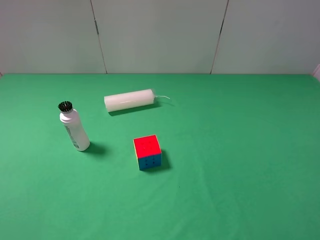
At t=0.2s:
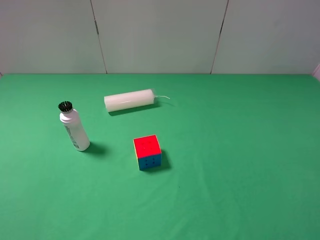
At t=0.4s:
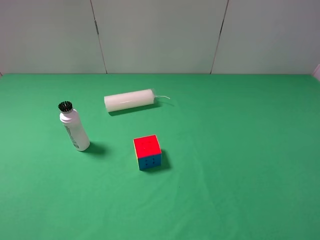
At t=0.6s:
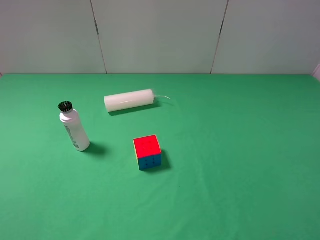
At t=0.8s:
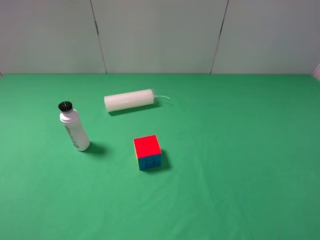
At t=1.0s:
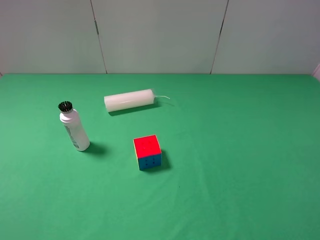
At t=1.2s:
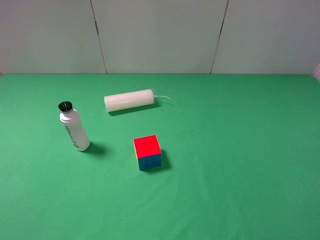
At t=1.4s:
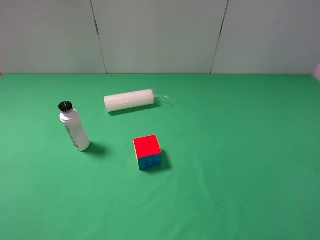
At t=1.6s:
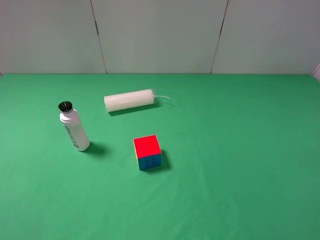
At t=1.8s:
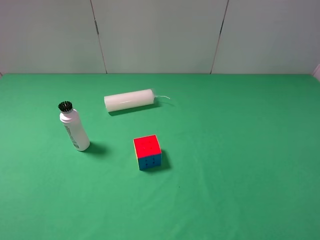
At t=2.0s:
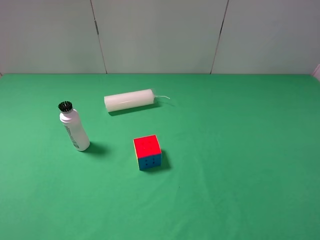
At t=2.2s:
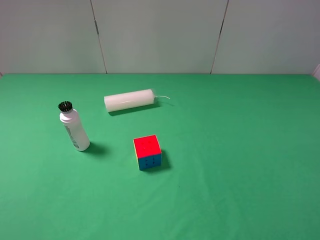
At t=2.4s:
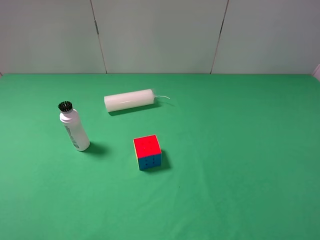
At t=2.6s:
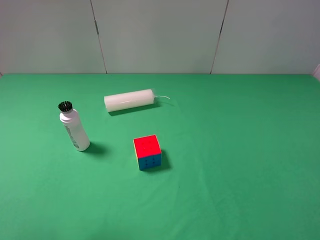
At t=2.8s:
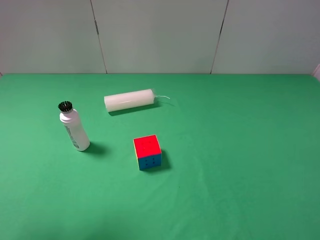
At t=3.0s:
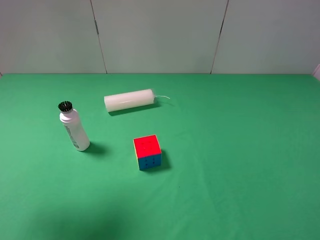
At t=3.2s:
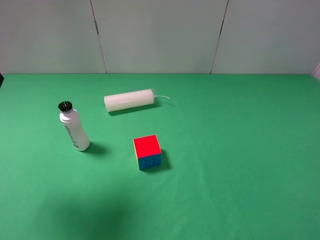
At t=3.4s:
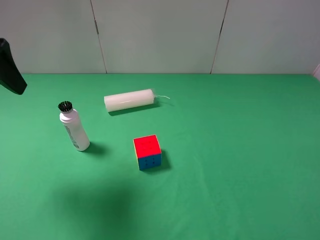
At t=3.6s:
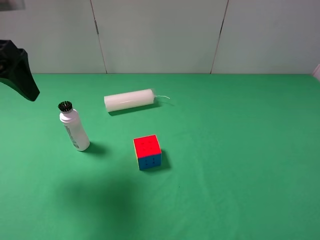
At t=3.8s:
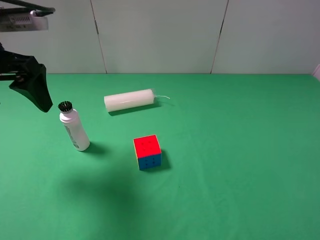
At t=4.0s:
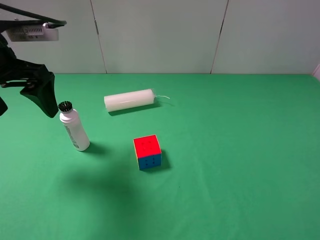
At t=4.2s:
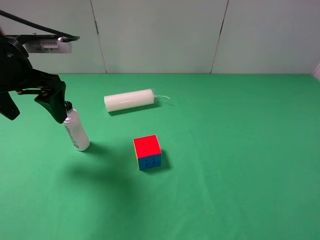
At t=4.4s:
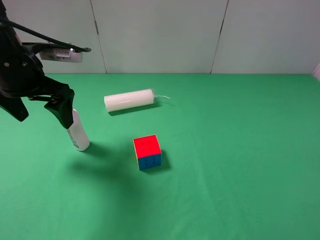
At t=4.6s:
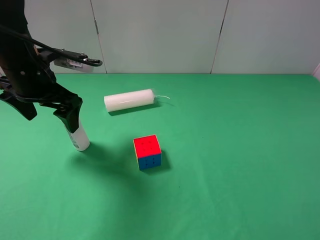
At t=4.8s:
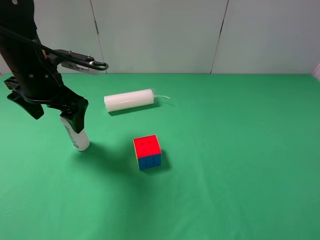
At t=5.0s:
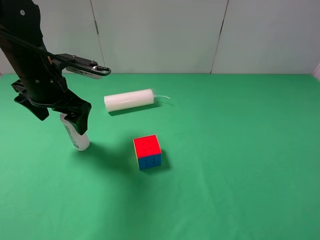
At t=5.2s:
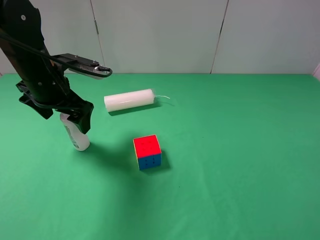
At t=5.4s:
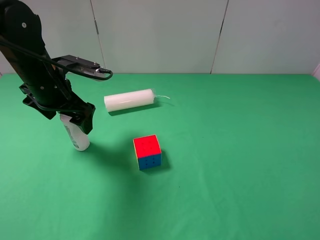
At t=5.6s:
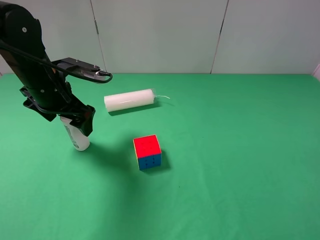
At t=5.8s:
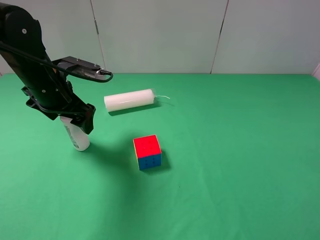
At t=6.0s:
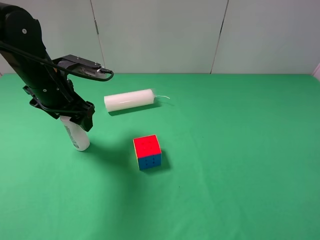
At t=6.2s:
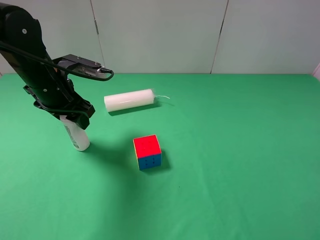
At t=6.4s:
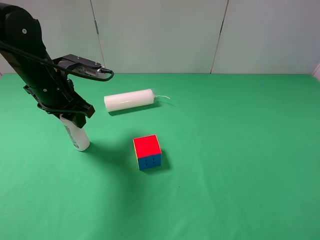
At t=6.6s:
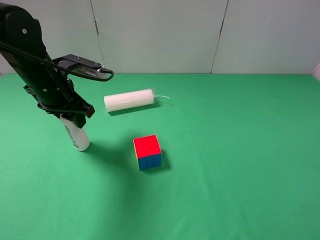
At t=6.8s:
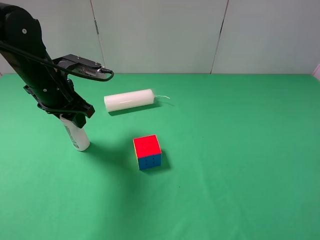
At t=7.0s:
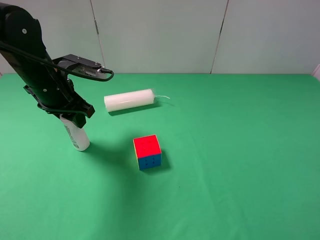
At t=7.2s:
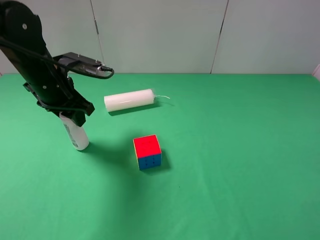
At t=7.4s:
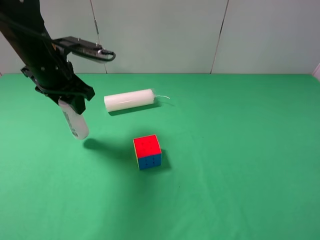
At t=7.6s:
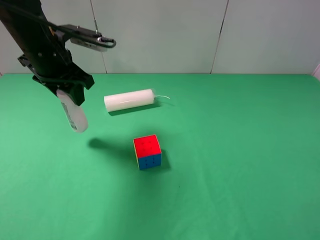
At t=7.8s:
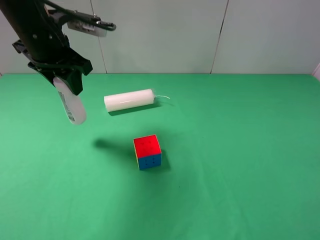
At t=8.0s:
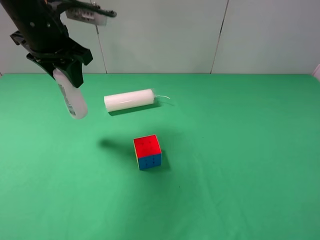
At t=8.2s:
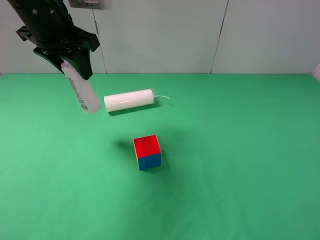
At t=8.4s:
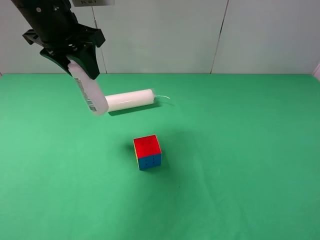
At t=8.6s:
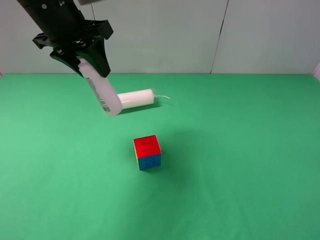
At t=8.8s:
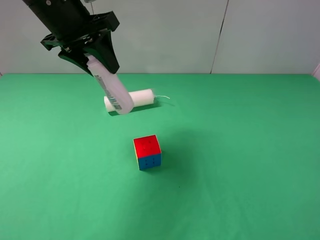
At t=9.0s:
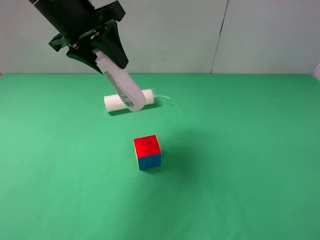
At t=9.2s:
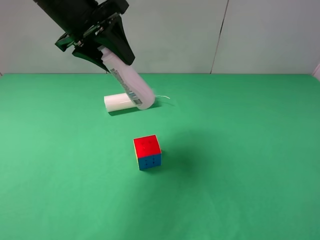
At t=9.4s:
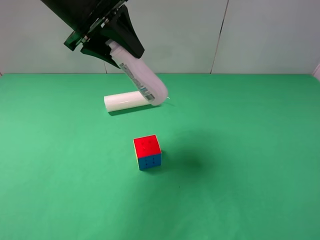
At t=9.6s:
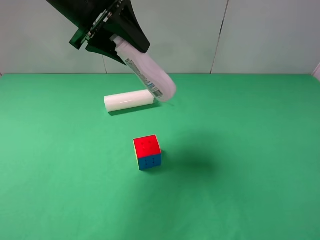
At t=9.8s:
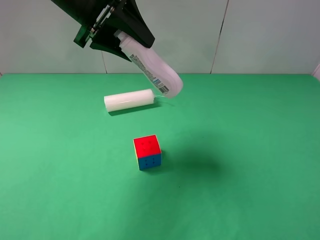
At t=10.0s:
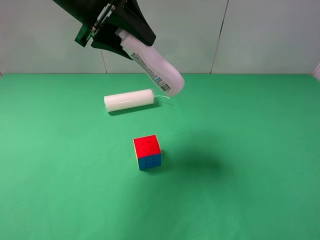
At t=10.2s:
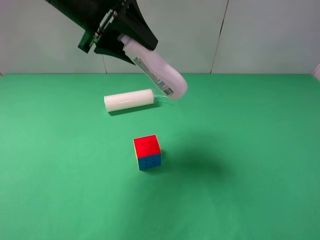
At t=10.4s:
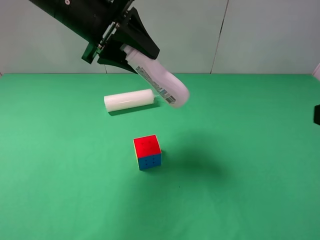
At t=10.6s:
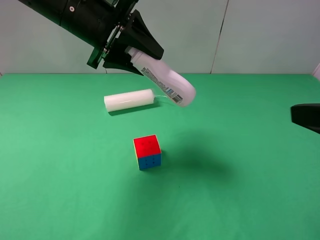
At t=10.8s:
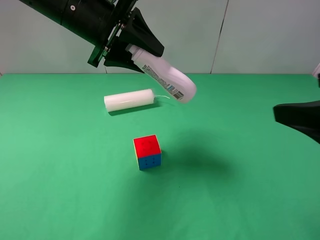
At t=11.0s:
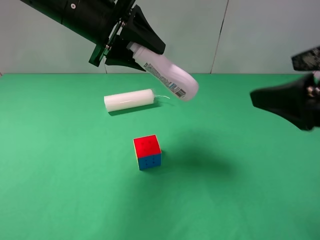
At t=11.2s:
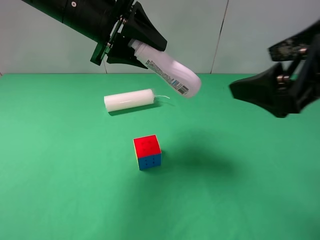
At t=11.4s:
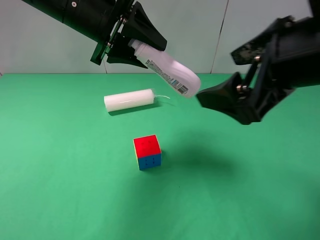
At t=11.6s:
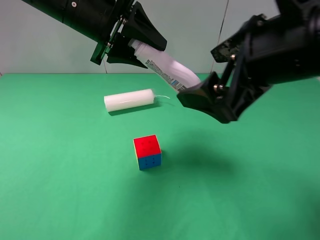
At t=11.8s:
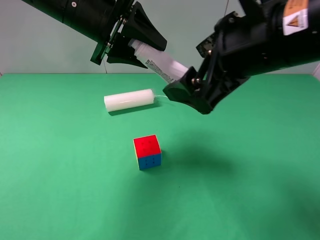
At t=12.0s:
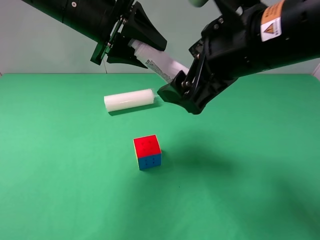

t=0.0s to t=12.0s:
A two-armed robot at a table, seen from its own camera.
Task of the whole recording: use the left gripper to pick up the item and transfer it from the left gripper to the right gripper.
t=0.0s to t=1.6s: The two grippers keep their place.
t=1.6s to t=3.0s: The left gripper travels forward and upward by approximately 20 cm.
t=3.0s to t=4.4s: The left gripper moves forward, downward and to the right, approximately 20 cm.
t=4.4s to t=6.0s: The left gripper shifts by approximately 5 cm, and closes up.
t=6.0s to t=7.6s: The left gripper is displaced upward by some 5 cm, and closes its fingers.
t=7.6s to t=9.0s: The left gripper travels upward by some 5 cm.
t=9.0s to t=10.4s: The right gripper travels forward by approximately 5 cm.
t=10.4s to t=12.0s: The right gripper shifts about 20 cm to the left and forward.

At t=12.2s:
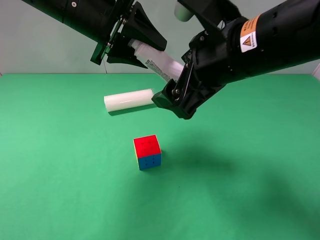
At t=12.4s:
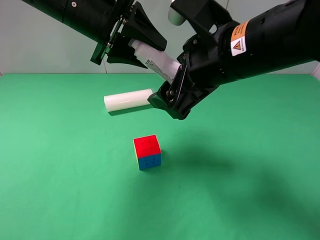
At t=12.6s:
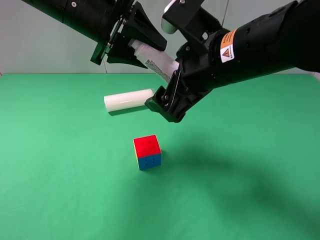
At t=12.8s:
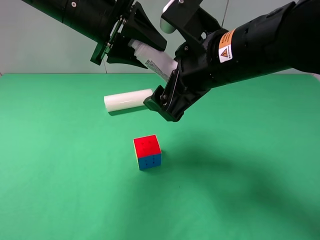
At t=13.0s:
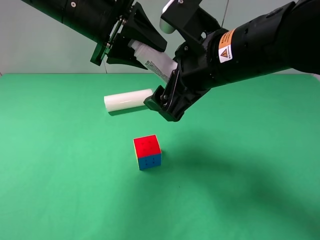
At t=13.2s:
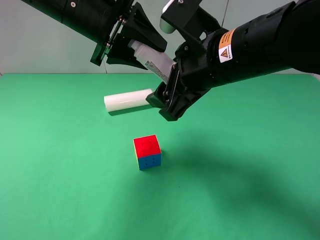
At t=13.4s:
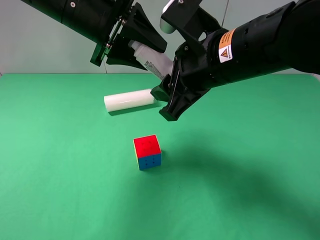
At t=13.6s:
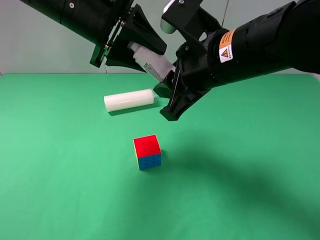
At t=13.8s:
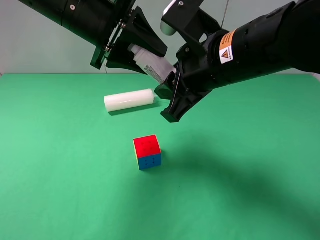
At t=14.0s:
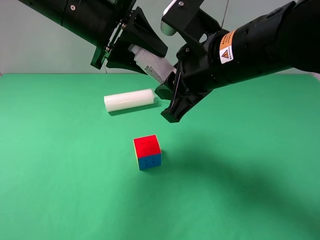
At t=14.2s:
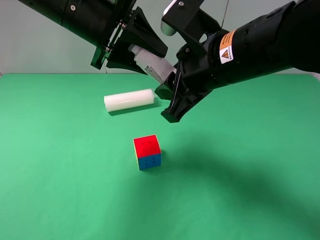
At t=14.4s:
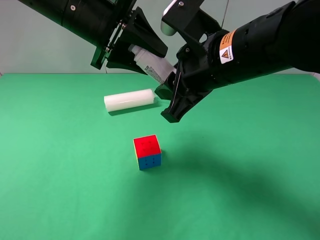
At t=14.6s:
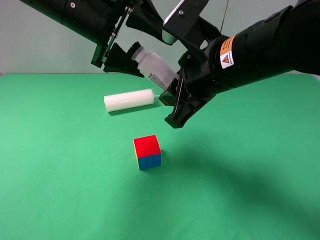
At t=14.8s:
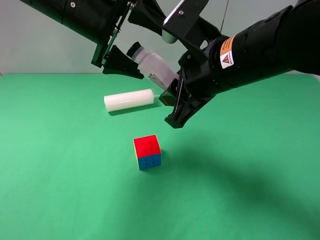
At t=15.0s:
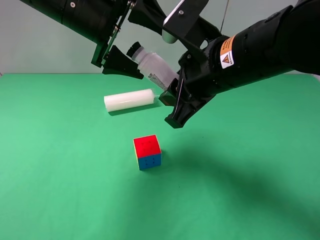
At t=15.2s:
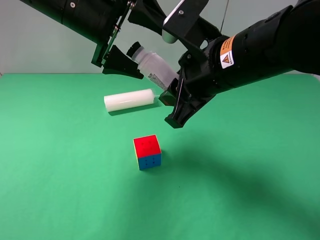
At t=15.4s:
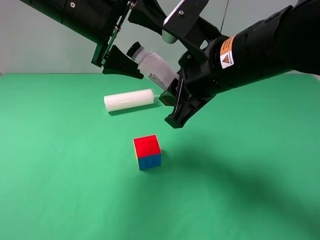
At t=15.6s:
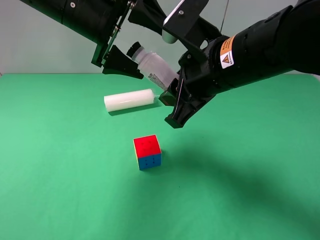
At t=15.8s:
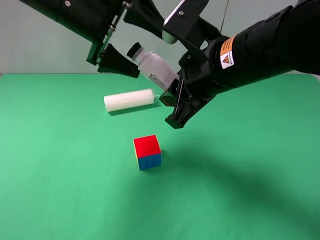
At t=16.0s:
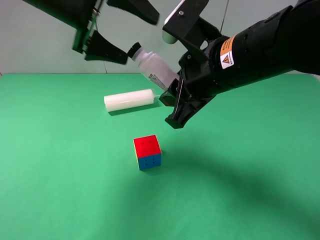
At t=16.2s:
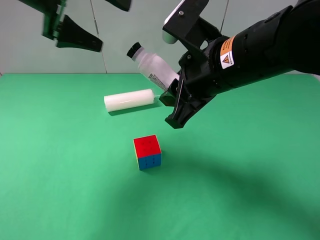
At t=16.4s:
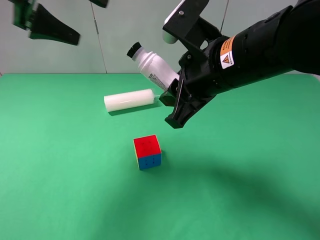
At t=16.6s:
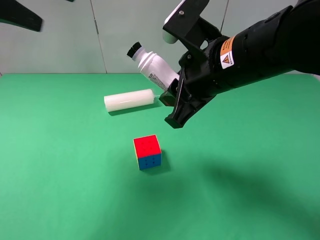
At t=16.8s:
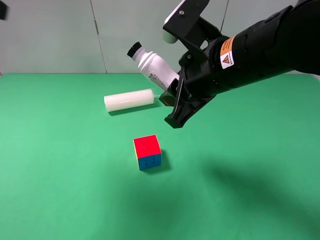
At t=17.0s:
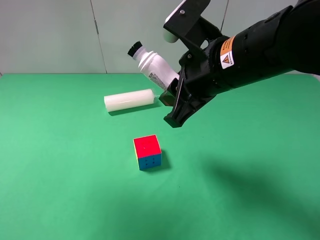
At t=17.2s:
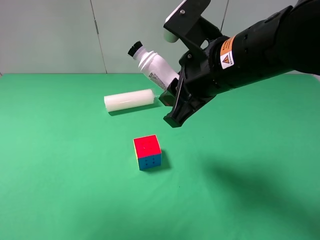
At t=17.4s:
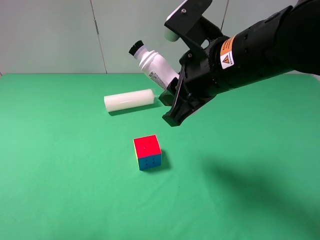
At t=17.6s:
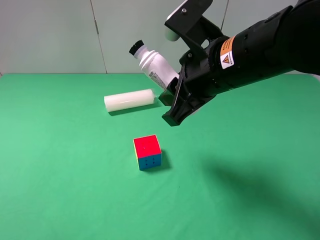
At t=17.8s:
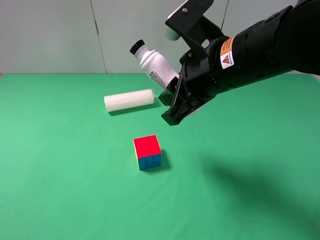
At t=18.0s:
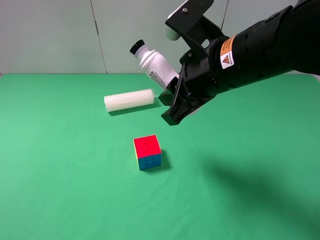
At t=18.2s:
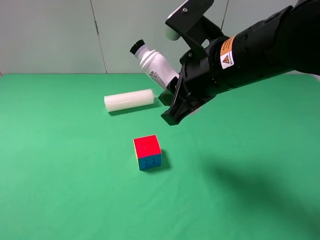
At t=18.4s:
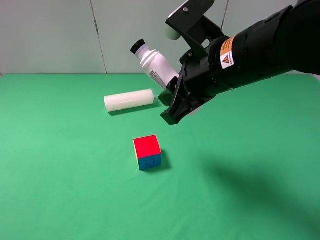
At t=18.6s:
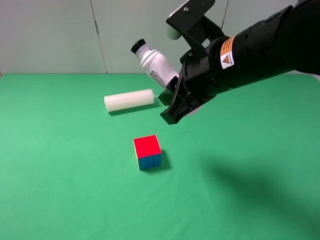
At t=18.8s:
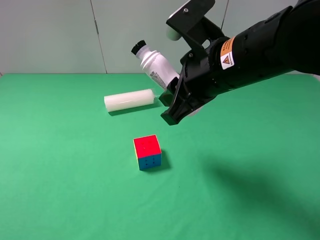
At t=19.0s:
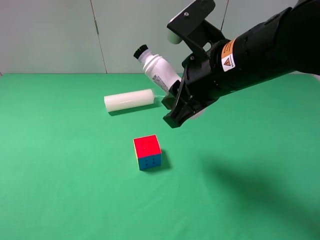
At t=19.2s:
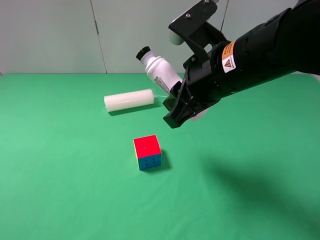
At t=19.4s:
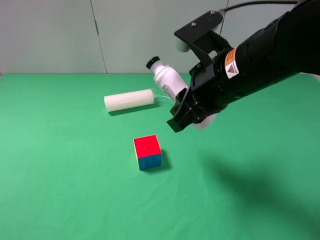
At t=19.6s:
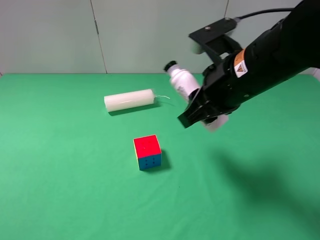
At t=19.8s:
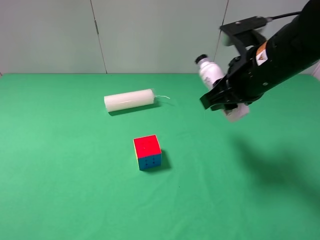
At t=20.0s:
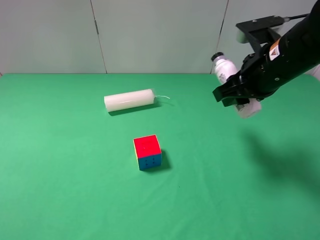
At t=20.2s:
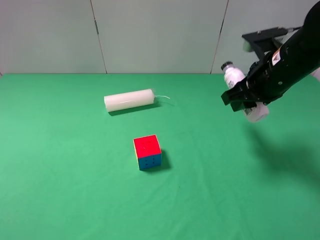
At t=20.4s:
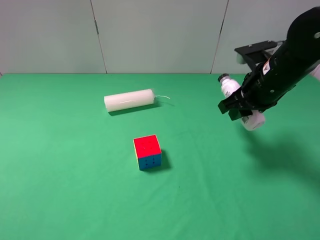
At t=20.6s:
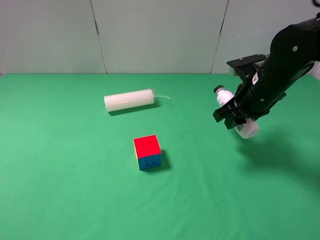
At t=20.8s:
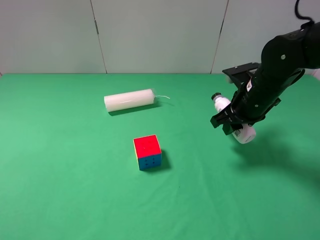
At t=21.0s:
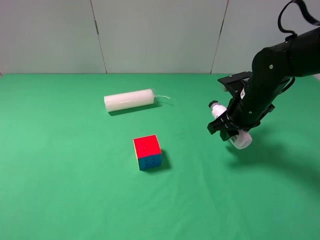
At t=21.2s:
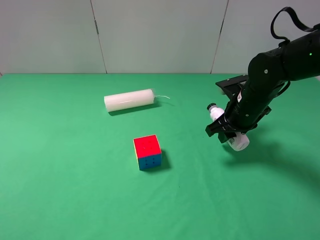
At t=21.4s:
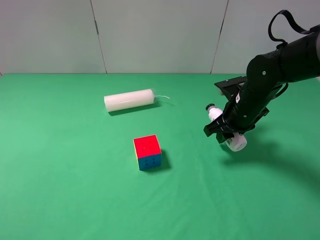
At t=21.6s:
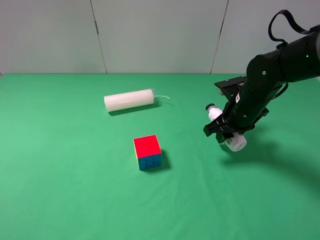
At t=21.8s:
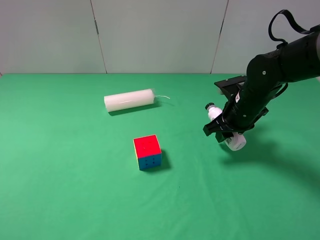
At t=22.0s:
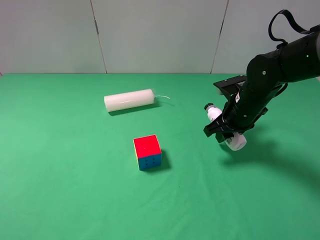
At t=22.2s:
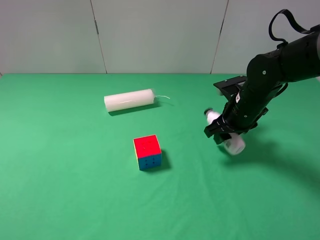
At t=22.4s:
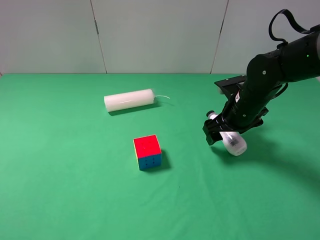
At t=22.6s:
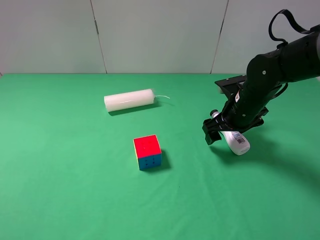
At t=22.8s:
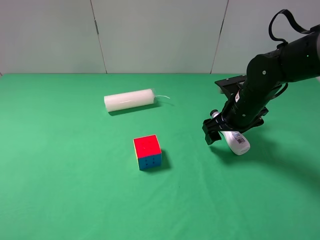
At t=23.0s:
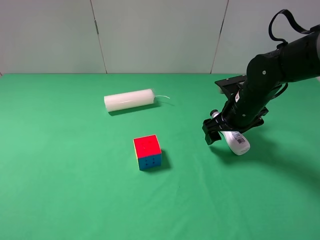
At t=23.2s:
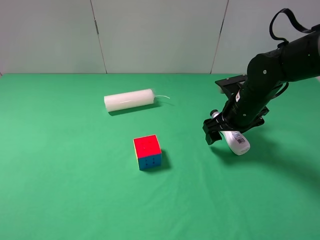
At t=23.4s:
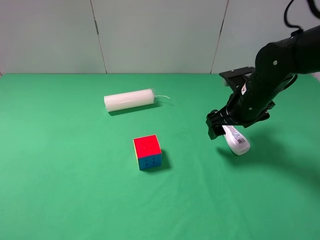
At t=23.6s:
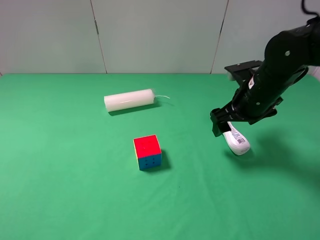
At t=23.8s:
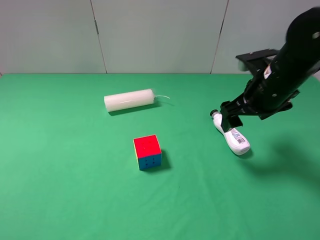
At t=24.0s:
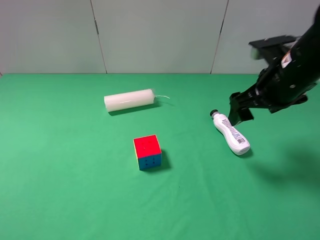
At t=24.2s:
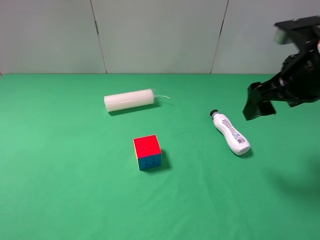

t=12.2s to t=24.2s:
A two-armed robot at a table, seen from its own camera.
Task of the whole recording: use the left gripper to pick up the item and transfer it from the left gripper to the right gripper.
t=12.2s to t=13.8s: The right gripper closes.
t=13.8s to t=15.2s: The left gripper opens.
t=15.2s to t=16.6s: The left gripper is displaced to the left, upward and backward by approximately 15 cm.
t=16.6s to t=18.2s: The left gripper shifts about 25 cm backward.
t=18.2s to t=19.8s: The right gripper moves to the right, approximately 5 cm.
t=19.8s to t=21.2s: The right gripper goes some 15 cm downward and forward.
t=21.2s to t=22.6s: The right gripper opens up.
t=22.6s to t=24.2s: The right gripper travels upward and backward by about 15 cm.
